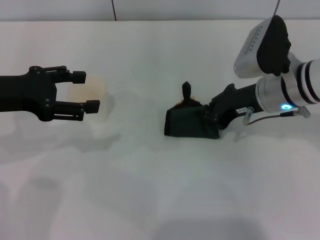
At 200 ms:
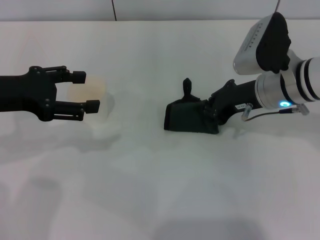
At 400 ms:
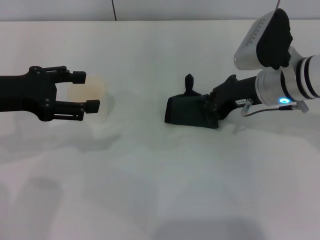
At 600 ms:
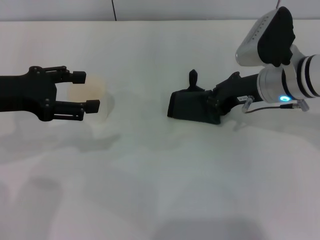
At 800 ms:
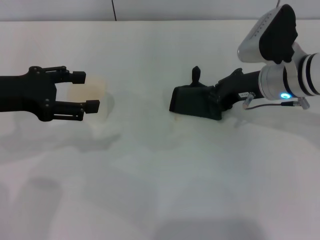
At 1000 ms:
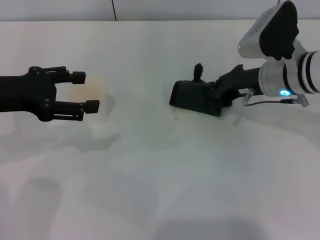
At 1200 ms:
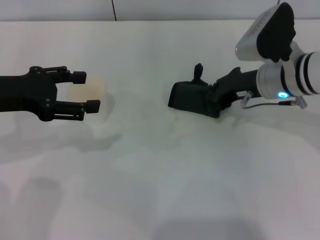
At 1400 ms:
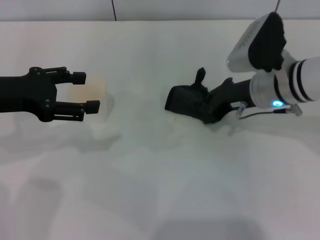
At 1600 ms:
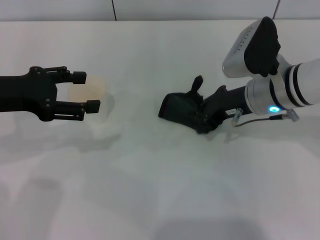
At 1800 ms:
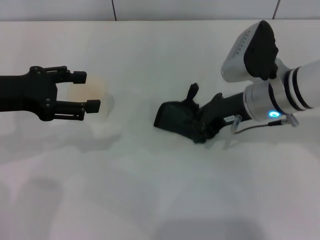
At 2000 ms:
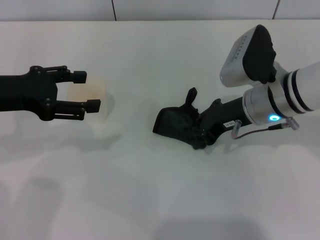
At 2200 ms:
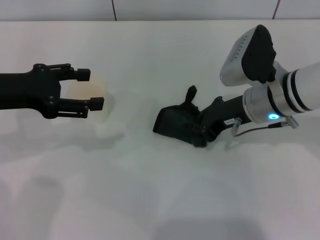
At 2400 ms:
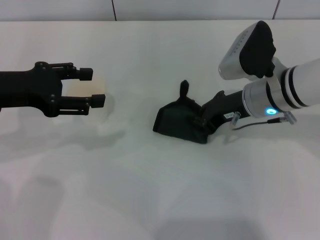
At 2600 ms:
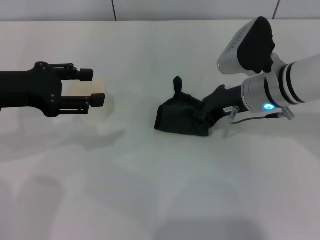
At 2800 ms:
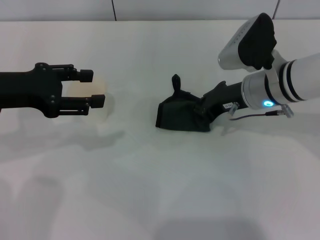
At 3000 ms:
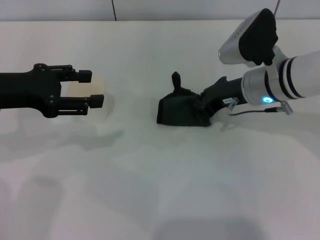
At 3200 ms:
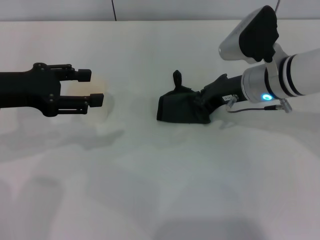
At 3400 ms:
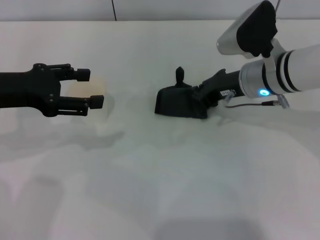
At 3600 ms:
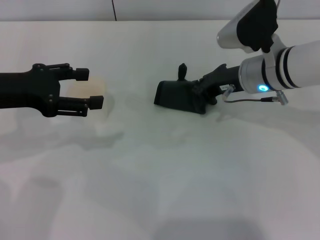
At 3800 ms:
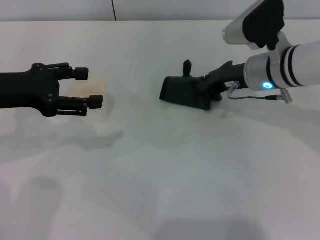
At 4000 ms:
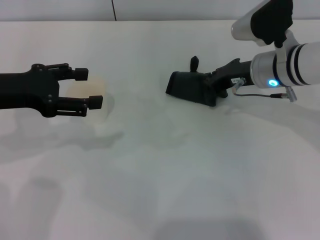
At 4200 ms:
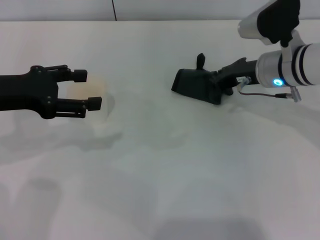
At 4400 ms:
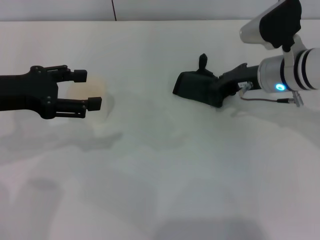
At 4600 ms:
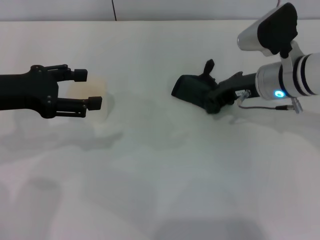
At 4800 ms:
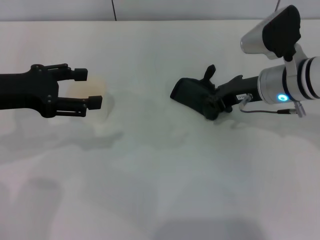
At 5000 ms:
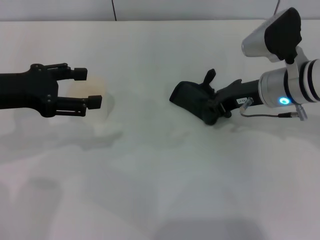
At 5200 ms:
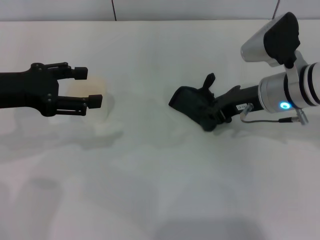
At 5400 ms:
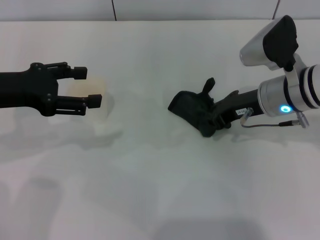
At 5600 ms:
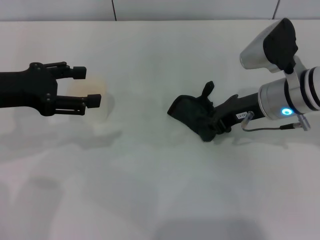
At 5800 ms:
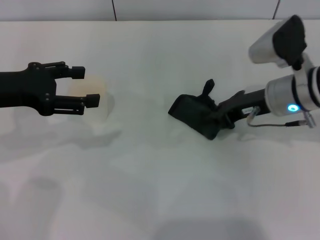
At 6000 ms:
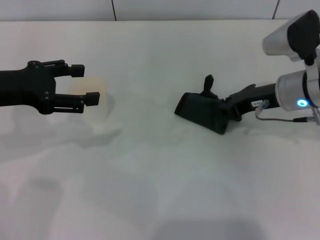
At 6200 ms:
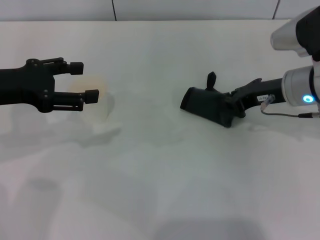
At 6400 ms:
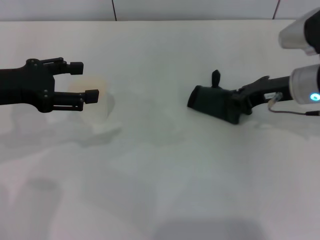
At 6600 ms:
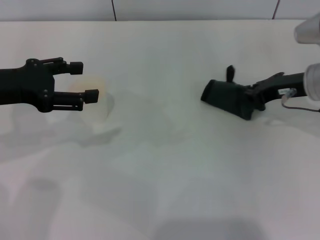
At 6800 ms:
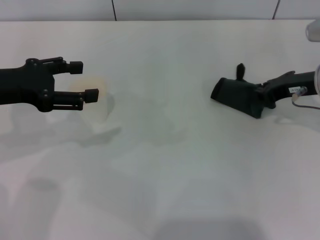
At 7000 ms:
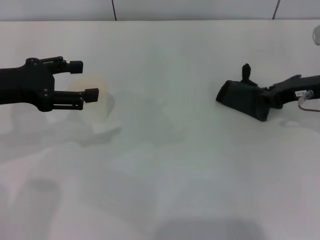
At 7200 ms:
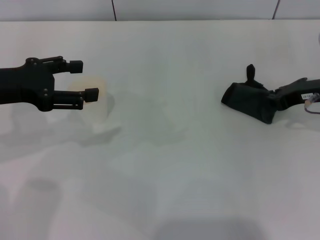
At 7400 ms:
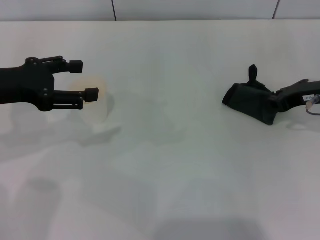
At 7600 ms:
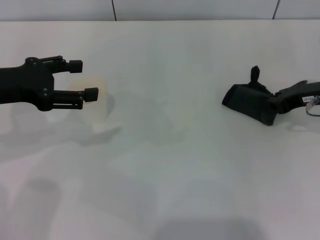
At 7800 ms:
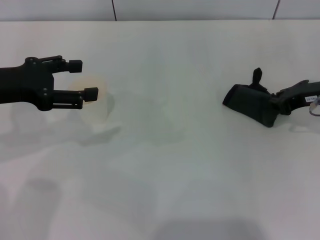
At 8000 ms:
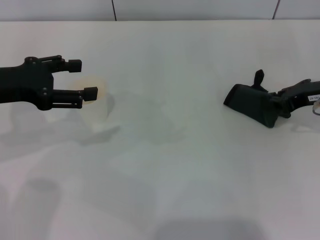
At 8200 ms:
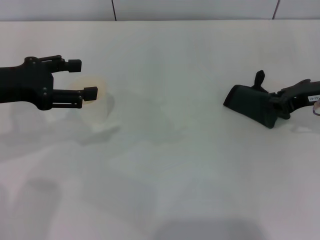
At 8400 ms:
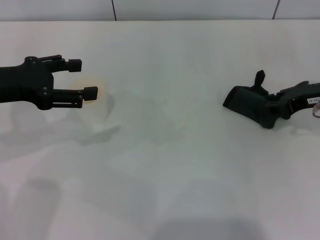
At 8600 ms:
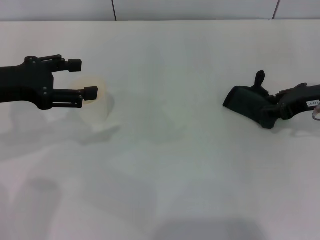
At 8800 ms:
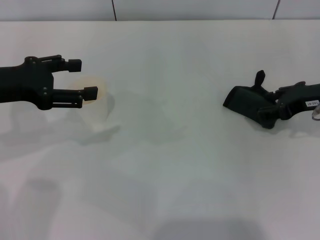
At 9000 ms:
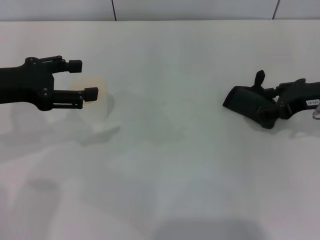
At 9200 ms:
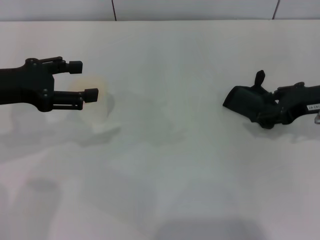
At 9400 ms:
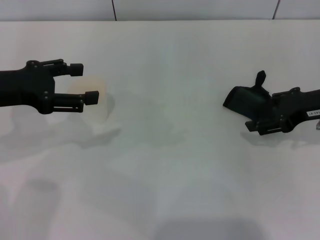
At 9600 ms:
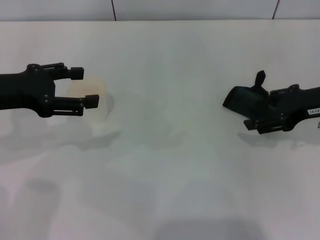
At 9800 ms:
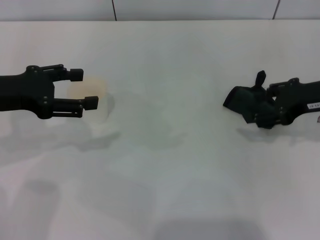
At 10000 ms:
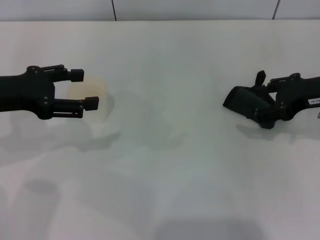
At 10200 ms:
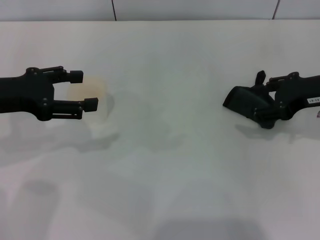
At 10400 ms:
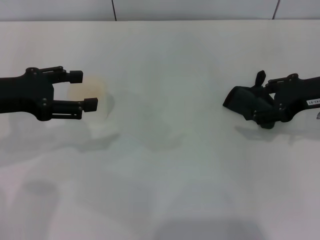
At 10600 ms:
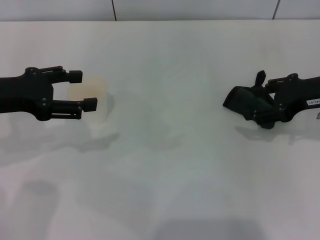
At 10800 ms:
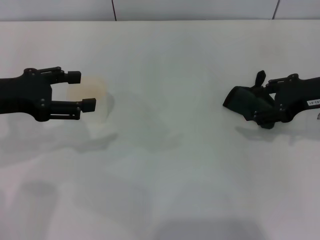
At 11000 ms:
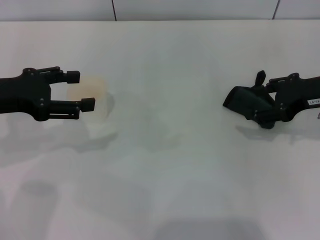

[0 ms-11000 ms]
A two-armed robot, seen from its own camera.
Step, 0 ms to 6000 ms: Wipe the stains off the table with the right gripper.
Step, 6200 ms to 9600 ms: Place the rag on the table with the right gripper.
0 ms to 3200 ms: There are only small adjustments of the grippers.
3200 ms to 4800 ms: The left gripper opens its fingers.
4800 ms to 6200 ms: The grippers make only small movements.
6200 ms to 7800 ms: The right gripper heads to the right, covering some 5 cm.
7800 ms to 9400 ms: The right gripper opens up.
9400 ms to 11000 ms: The grippers move only a little.

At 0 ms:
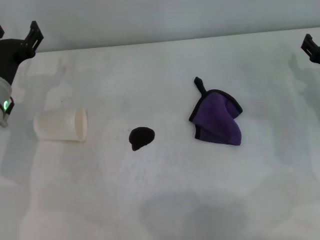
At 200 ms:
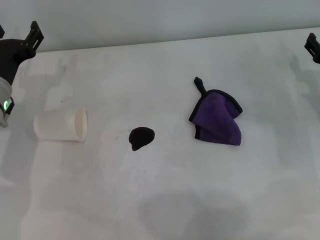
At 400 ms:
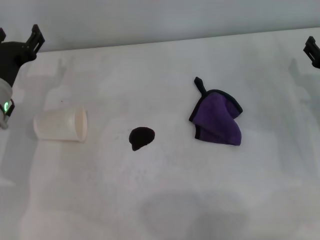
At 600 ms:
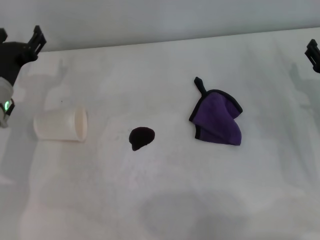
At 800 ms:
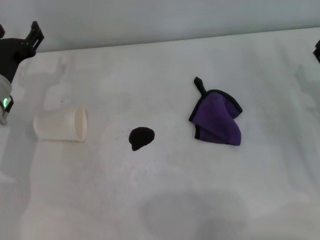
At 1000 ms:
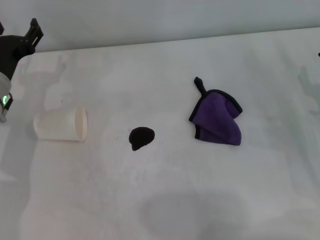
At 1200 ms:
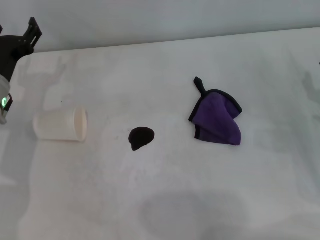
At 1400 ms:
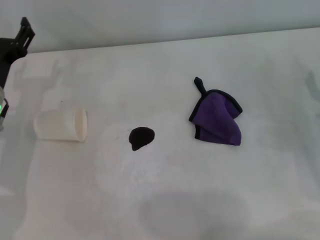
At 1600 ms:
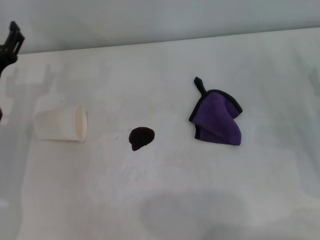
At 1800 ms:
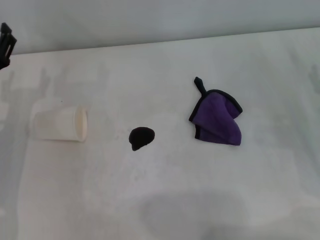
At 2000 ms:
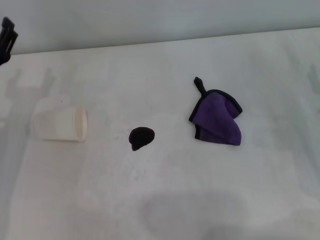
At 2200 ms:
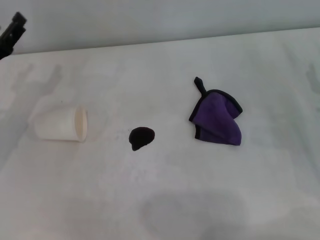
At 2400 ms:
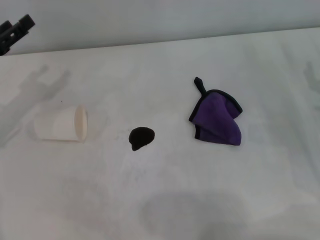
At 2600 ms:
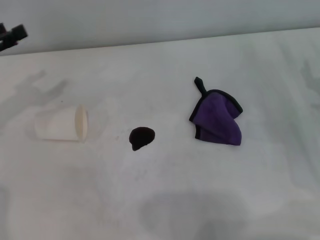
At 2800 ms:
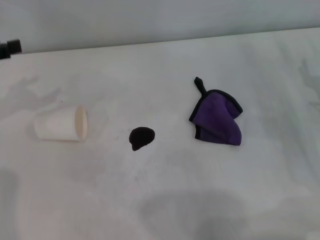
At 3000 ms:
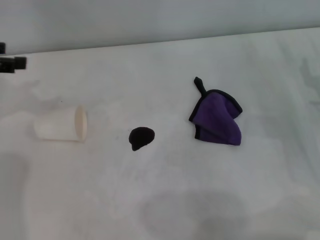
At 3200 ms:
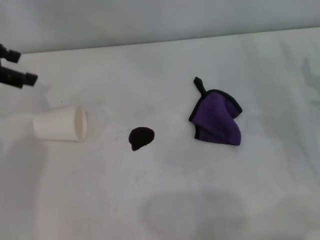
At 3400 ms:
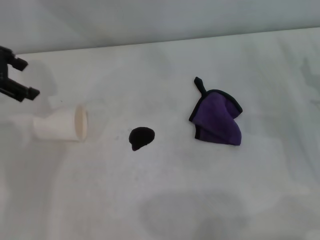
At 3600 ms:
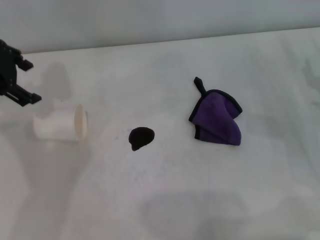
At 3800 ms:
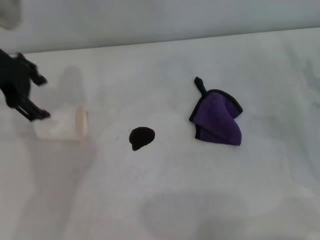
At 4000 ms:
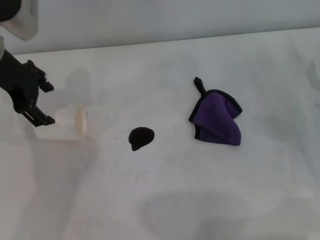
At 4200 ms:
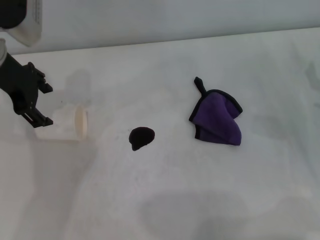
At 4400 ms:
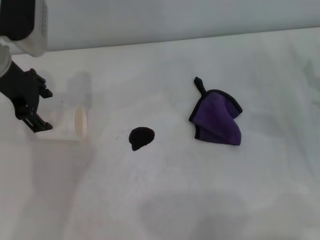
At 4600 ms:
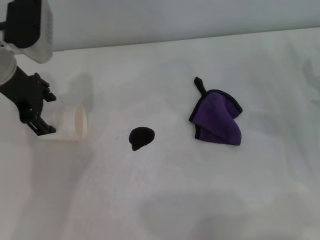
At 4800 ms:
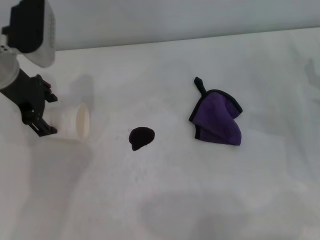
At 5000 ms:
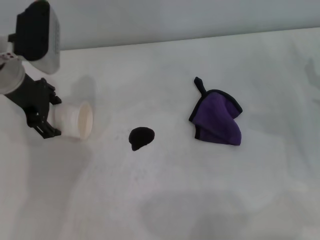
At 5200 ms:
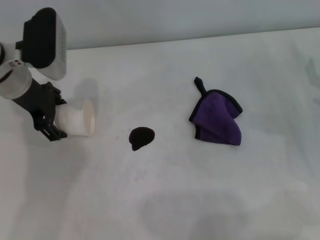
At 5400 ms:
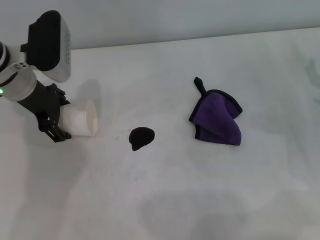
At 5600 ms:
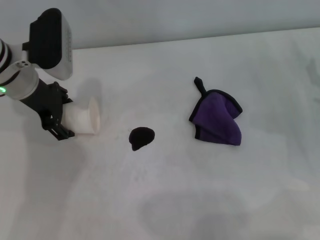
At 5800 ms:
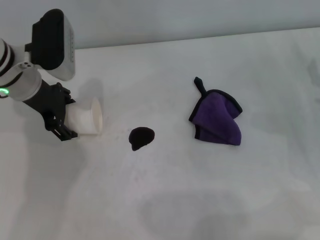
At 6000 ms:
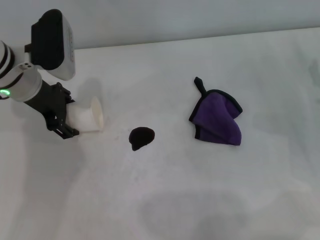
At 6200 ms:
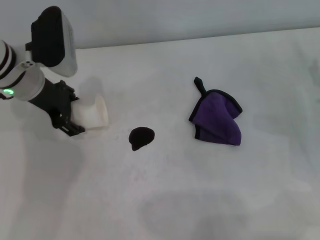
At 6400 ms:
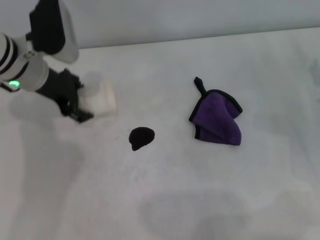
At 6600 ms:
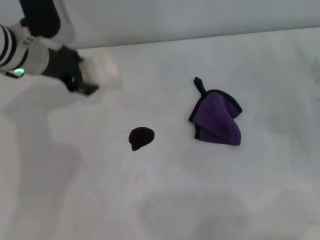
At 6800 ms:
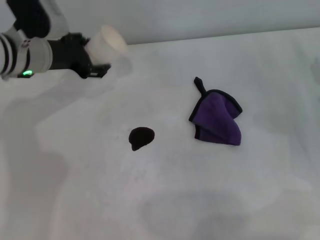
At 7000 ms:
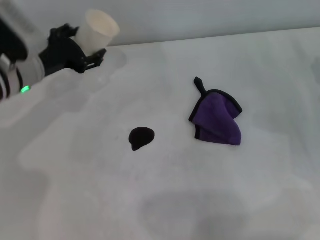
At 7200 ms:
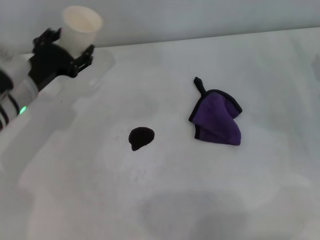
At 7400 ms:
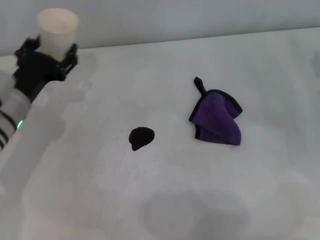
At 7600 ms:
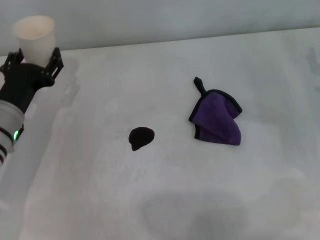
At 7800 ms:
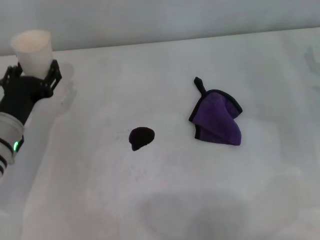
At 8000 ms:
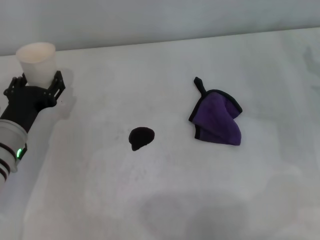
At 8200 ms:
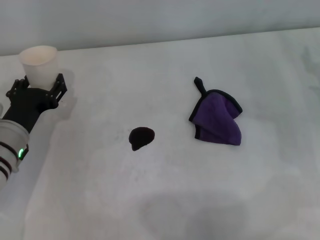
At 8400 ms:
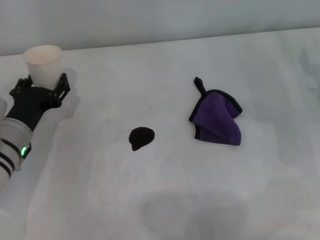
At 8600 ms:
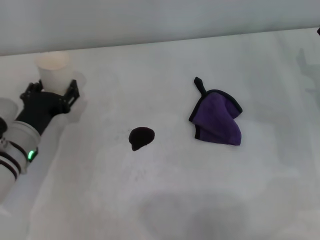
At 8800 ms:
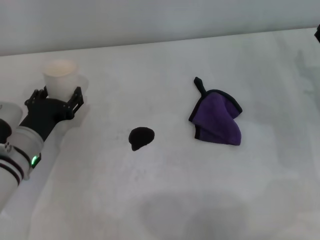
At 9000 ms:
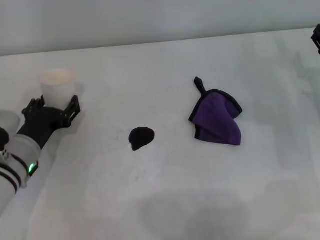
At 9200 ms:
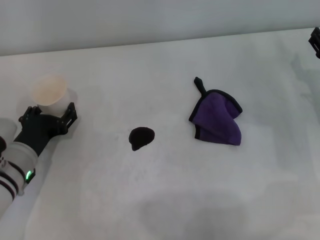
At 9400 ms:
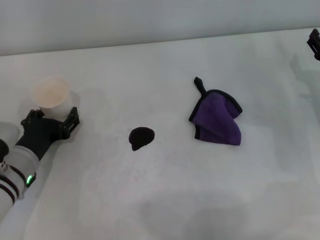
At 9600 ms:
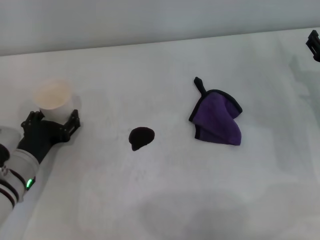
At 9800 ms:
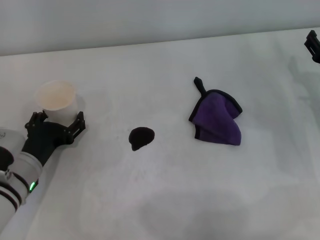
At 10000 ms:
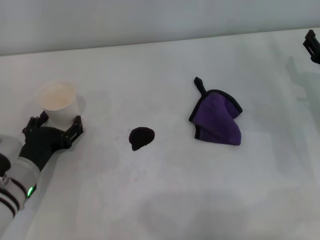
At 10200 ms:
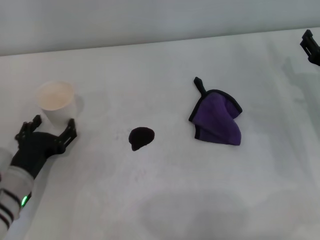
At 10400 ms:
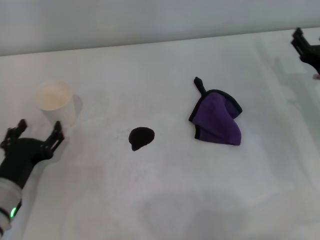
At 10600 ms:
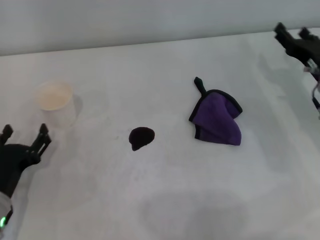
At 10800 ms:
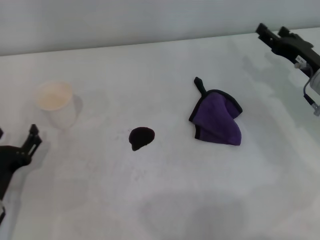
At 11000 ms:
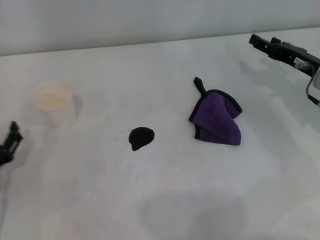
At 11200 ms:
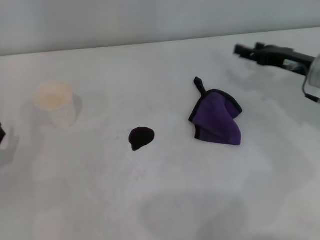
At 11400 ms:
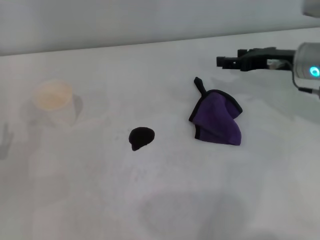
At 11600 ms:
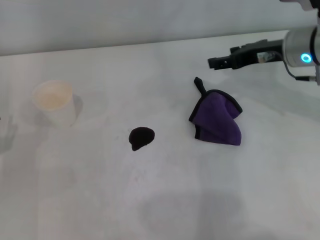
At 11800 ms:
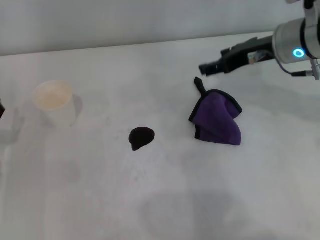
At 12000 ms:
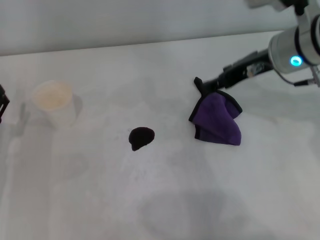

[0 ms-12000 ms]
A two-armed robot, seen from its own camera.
Step, 0 ms to 5400 ms: Grasp the paper cup with the left gripper.
Step, 5600 ms to 9800 ms: Stand the paper cup upright with the left gripper.
0 ms to 1600 ms: The right gripper is displaced backward by about 5 cm.
1600 ms to 3000 ms: The left gripper moves upward and to the left, about 15 cm.
3000 ms to 4400 ms: The left gripper heads to the right, covering some 15 cm.
4400 ms to 6000 ms: The left gripper shifts roughly 5 cm downward.
6000 ms to 7600 ms: The left gripper is displaced downward and backward by approximately 10 cm.
7600 ms to 9000 ms: The left gripper moves approximately 5 cm.
9000 ms to 10400 ms: The left gripper moves backward, about 5 cm.
10400 ms to 12000 ms: The left gripper moves approximately 5 cm, while the right gripper shifts roughly 15 cm upward and to the left.
